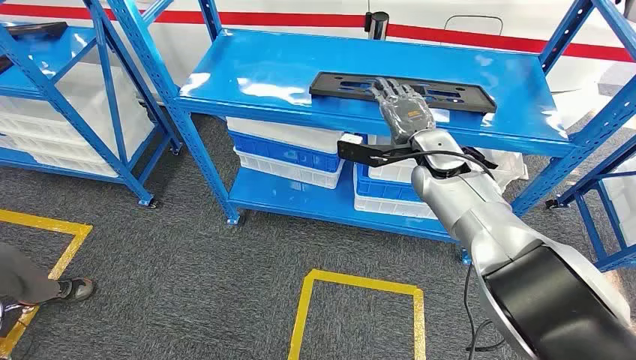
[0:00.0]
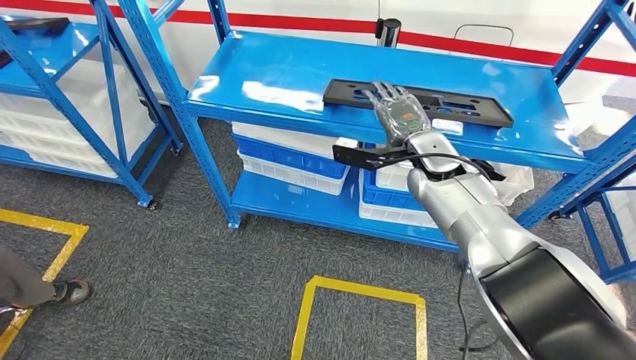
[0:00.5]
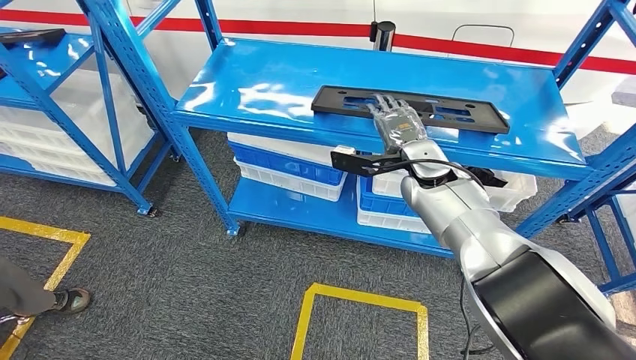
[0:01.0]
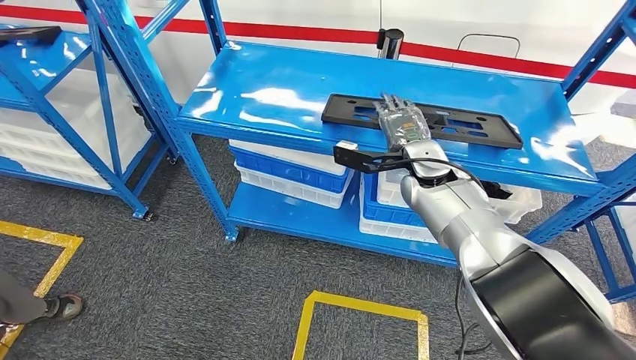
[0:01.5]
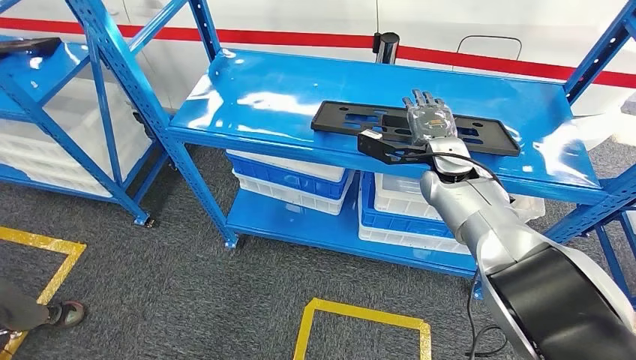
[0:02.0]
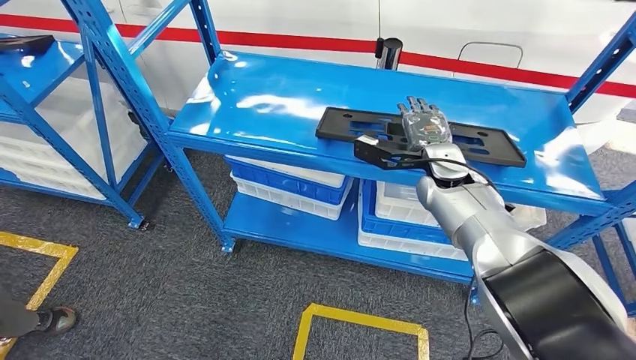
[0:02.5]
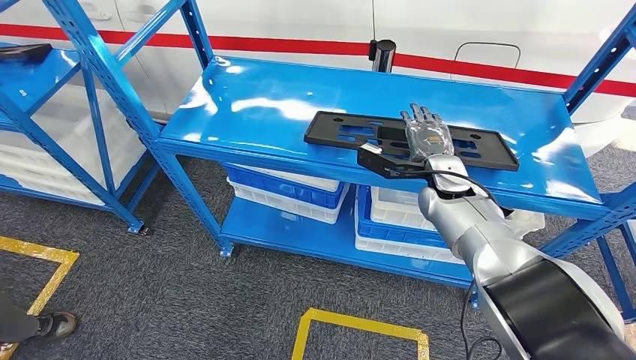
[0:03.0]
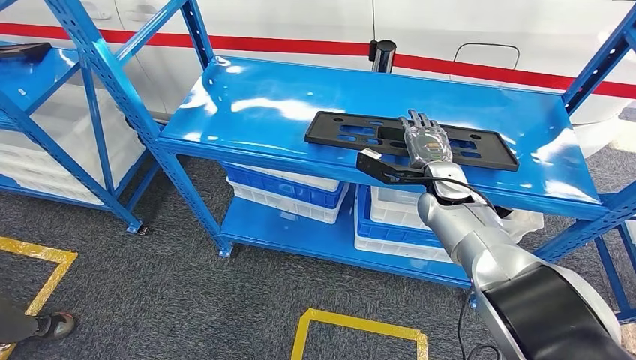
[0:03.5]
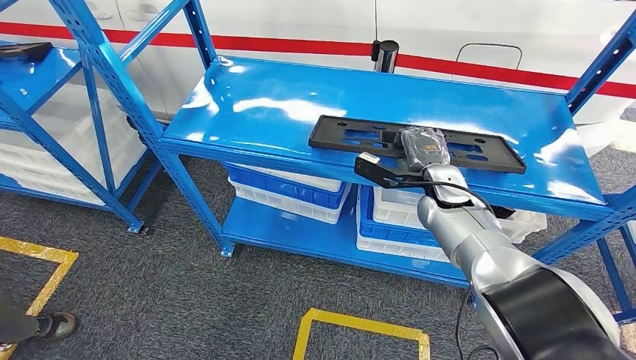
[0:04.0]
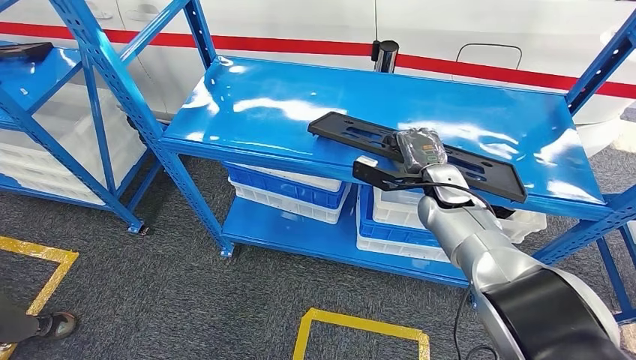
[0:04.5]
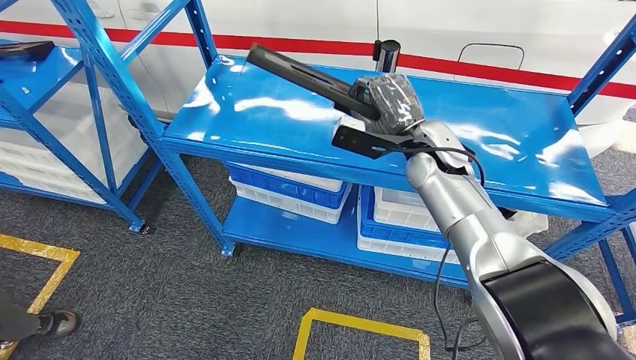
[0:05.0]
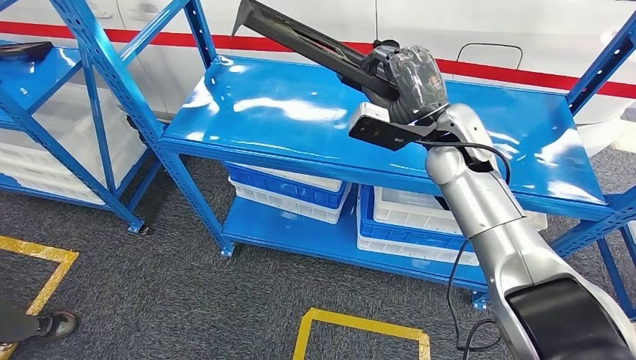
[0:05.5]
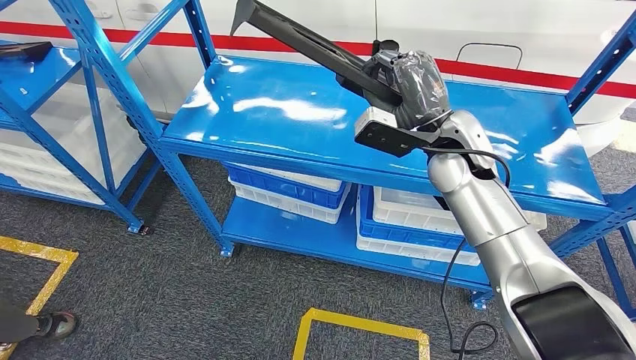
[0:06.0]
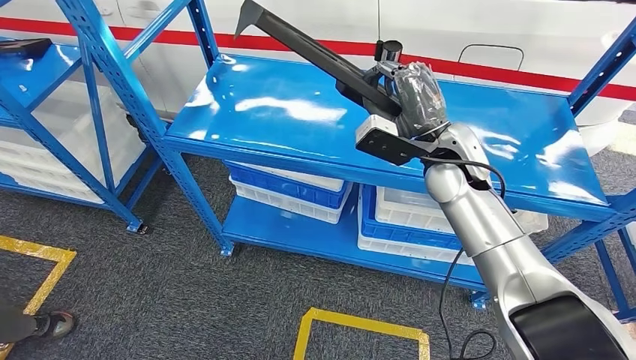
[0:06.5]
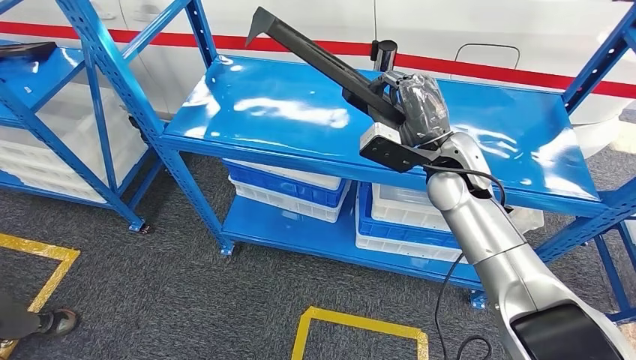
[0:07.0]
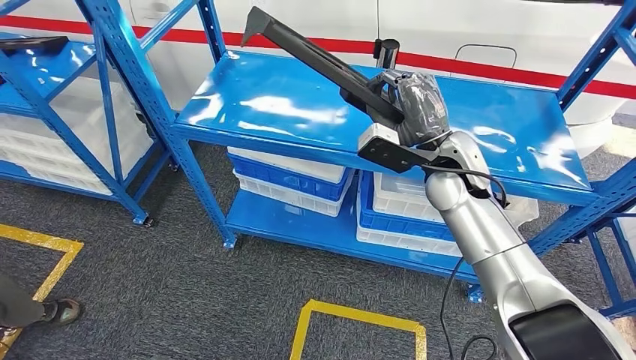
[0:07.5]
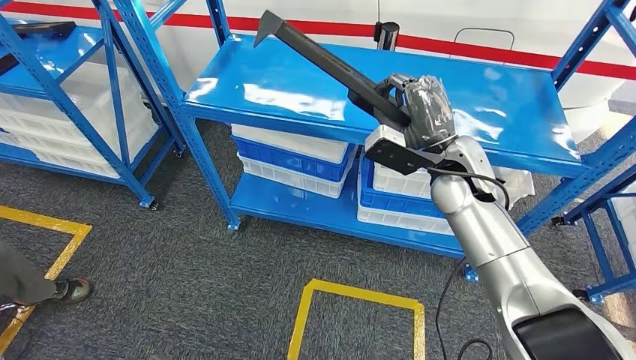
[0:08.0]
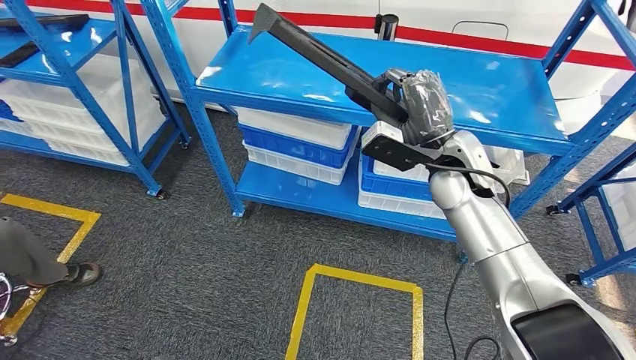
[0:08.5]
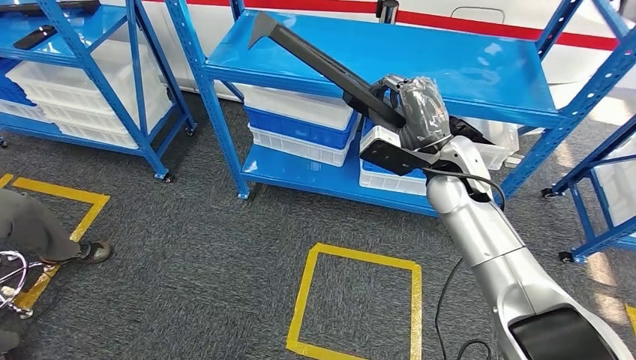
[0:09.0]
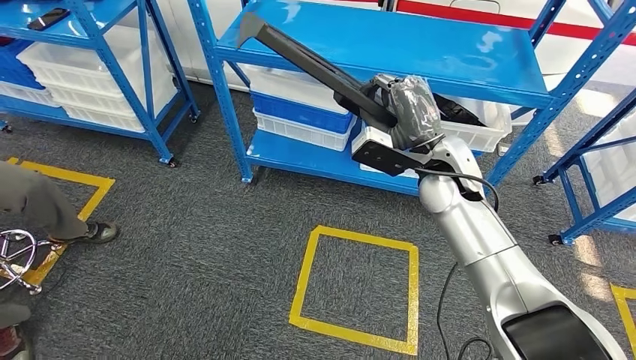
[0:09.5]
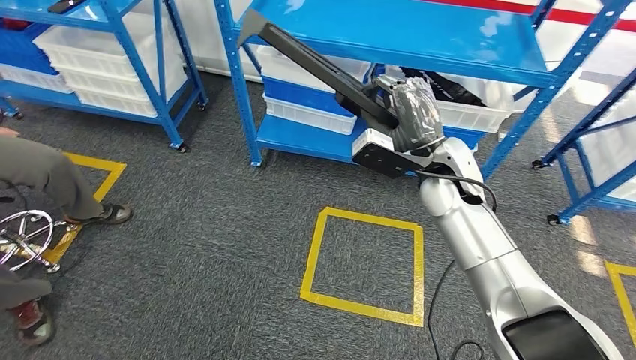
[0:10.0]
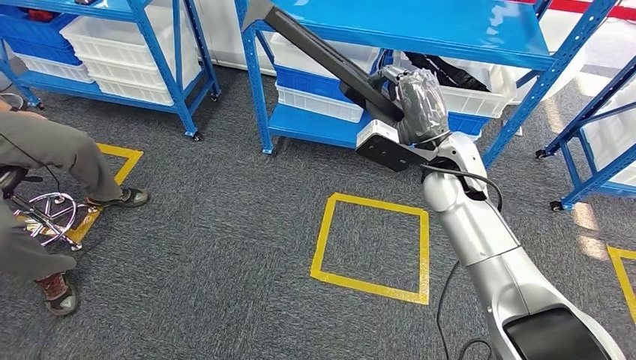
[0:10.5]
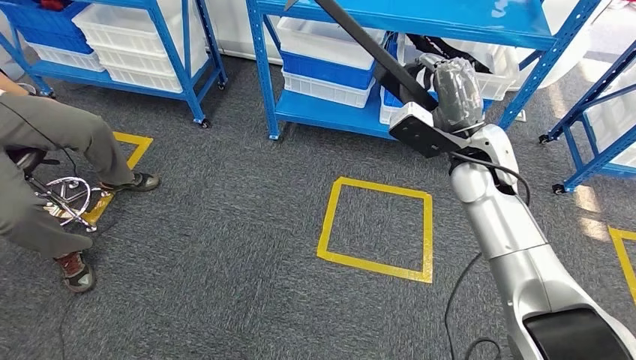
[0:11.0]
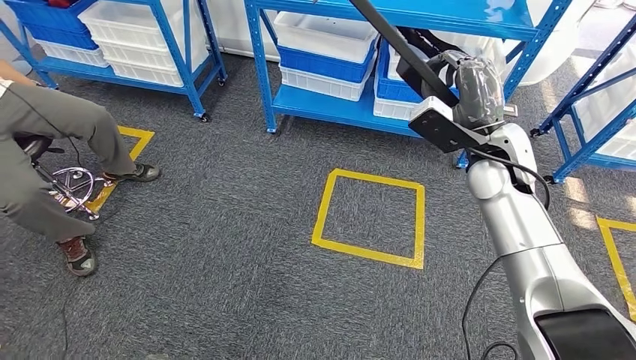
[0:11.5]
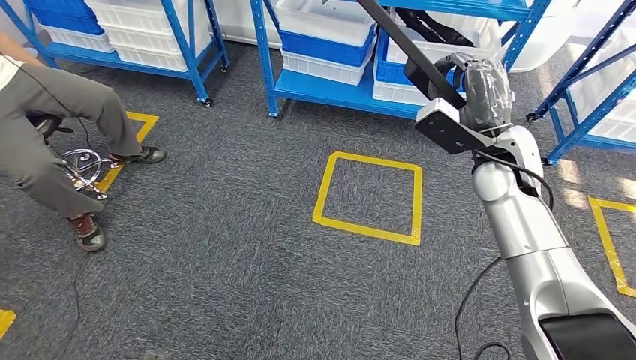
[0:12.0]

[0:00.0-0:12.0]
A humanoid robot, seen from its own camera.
Step, 0:00.0 to 0:04.5: Pick up the large material from the shelf.
0:04.0 to 0:06.0: The right hand moves upward, some 15 cm.

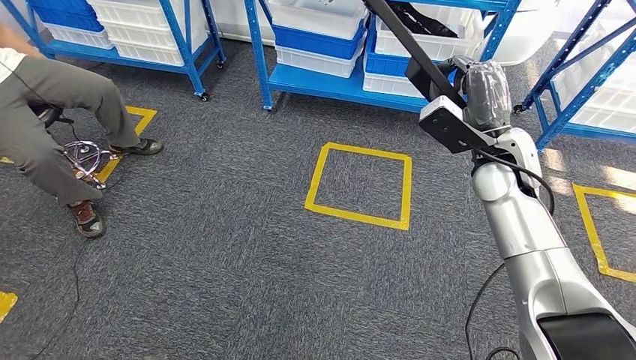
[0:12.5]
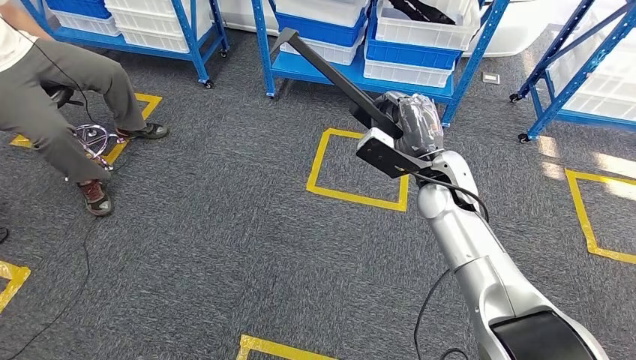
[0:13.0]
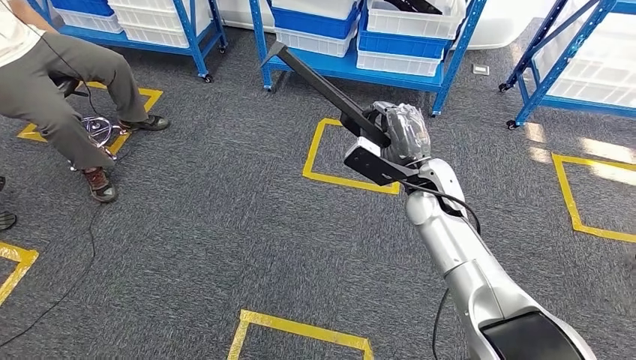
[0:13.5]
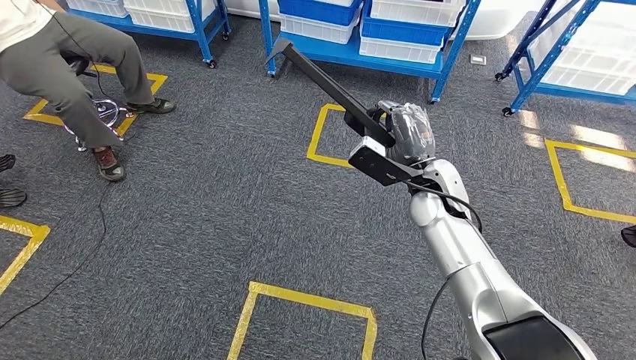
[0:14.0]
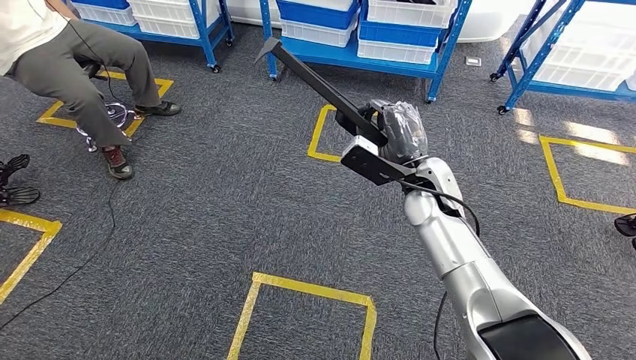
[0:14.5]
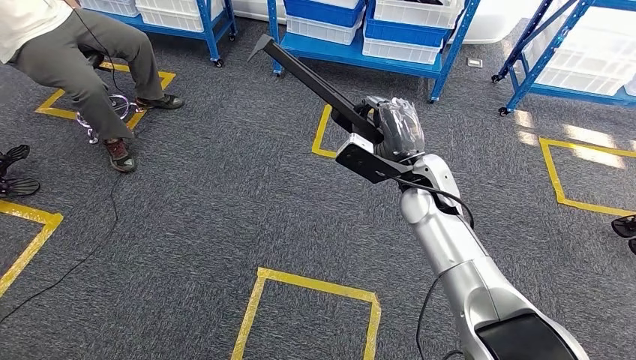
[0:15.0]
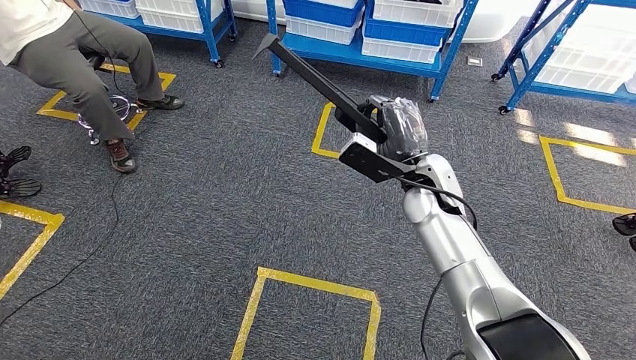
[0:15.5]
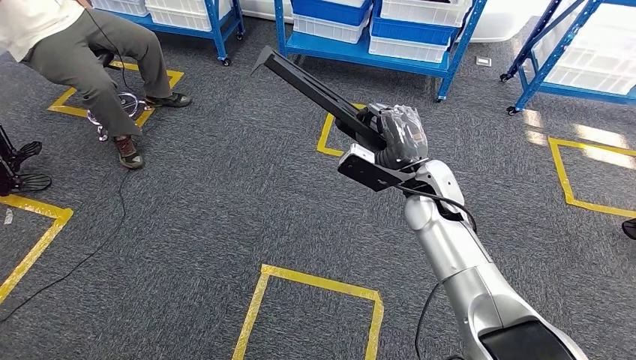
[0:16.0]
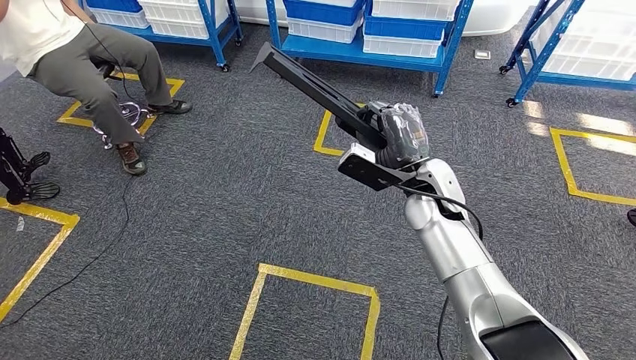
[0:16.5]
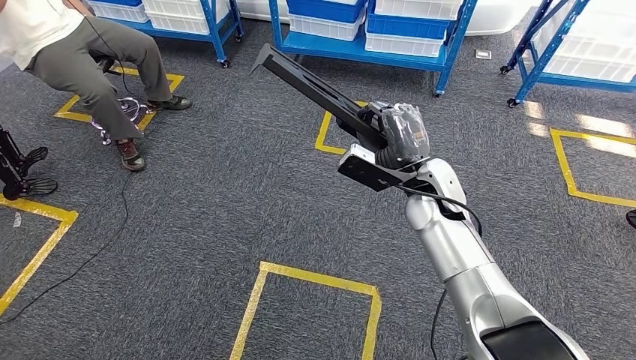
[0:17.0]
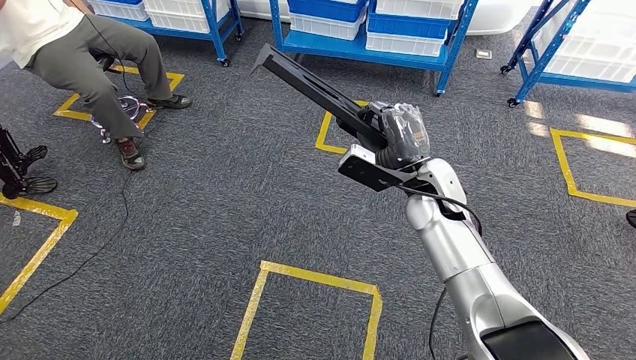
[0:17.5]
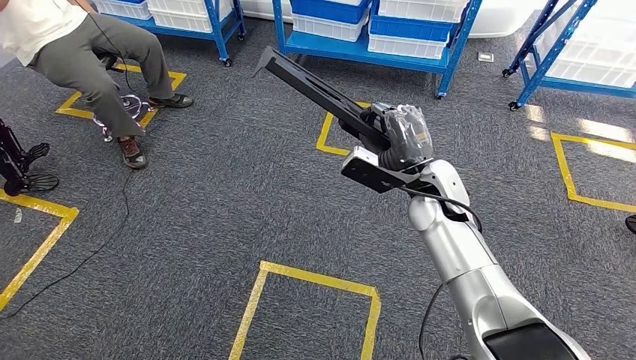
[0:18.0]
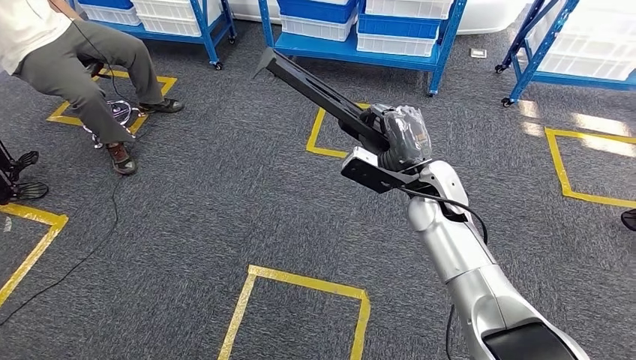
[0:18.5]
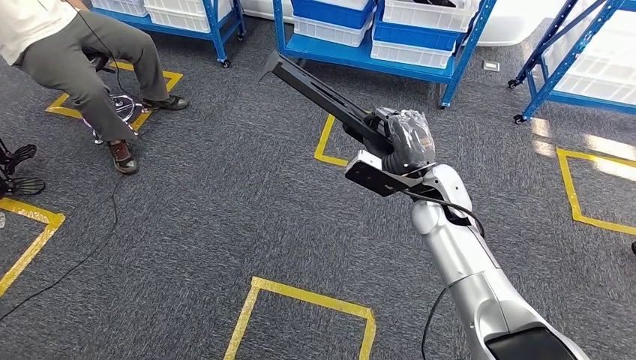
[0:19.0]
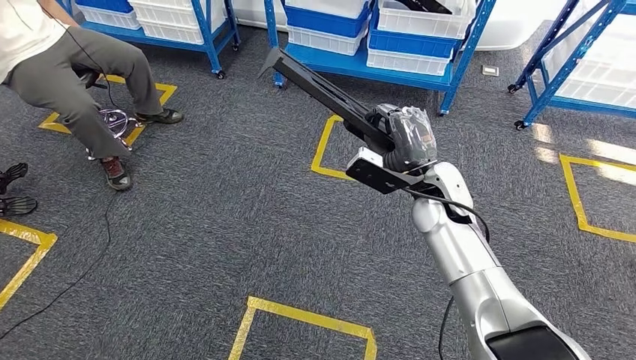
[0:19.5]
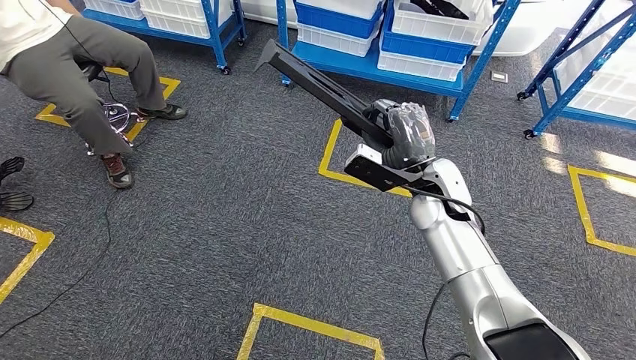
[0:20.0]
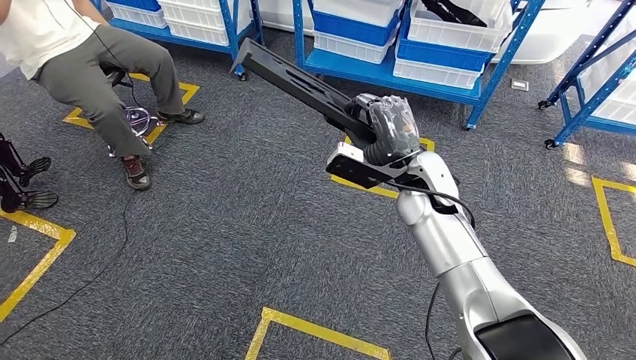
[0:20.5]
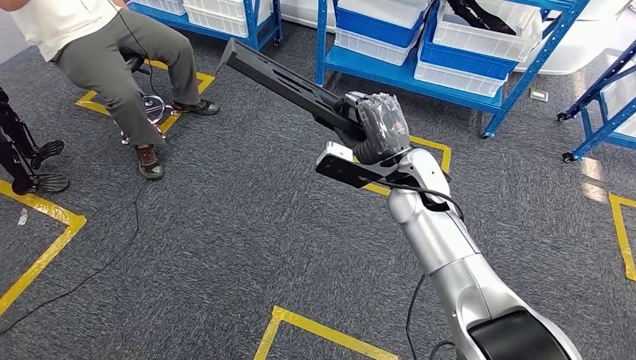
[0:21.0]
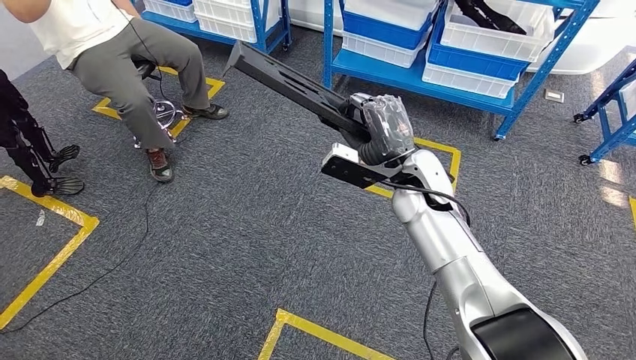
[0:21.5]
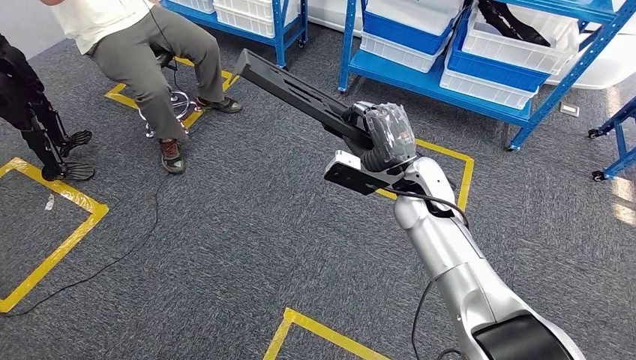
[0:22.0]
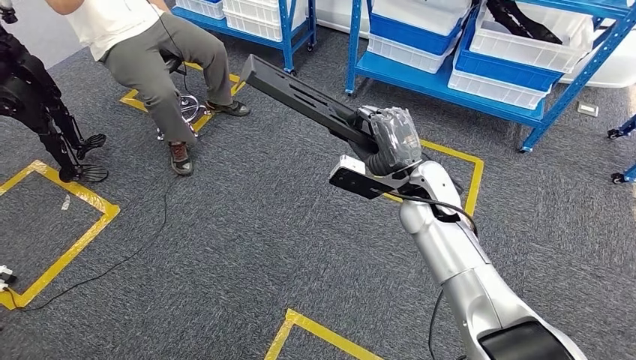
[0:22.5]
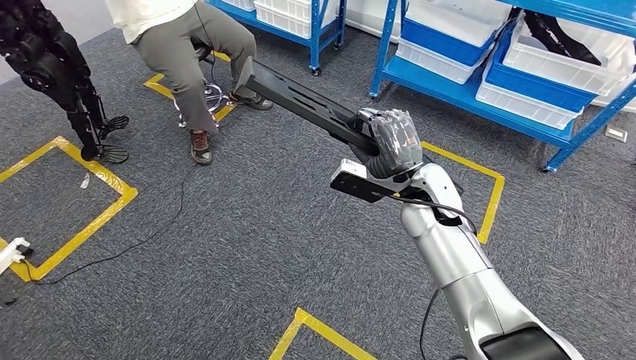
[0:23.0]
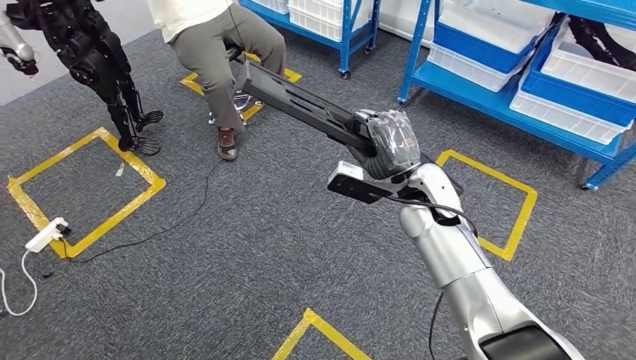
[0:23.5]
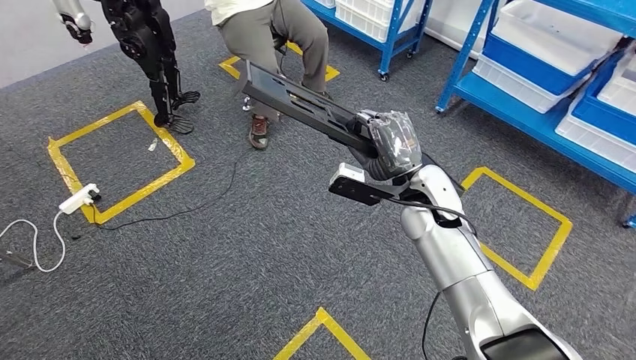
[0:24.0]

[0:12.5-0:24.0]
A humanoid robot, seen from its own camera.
0:16.5 to 0:18.5: The two hands keep their place.
